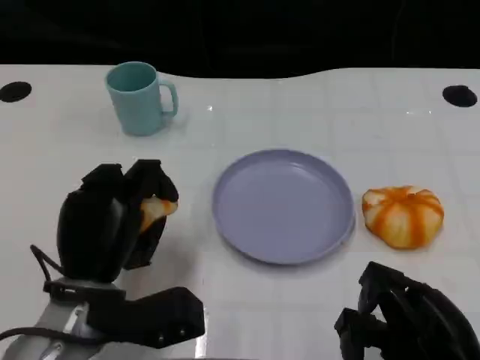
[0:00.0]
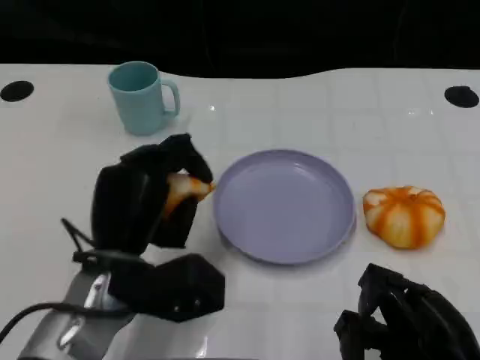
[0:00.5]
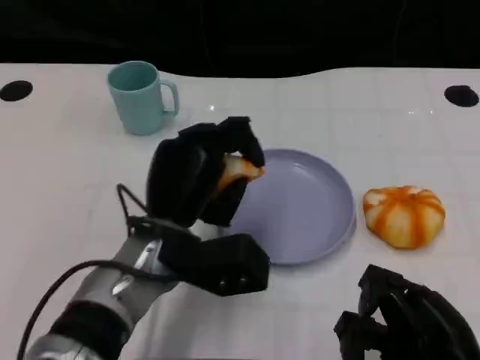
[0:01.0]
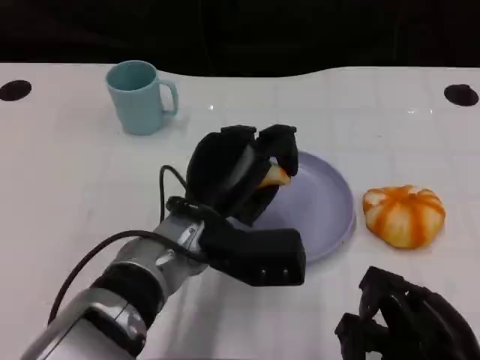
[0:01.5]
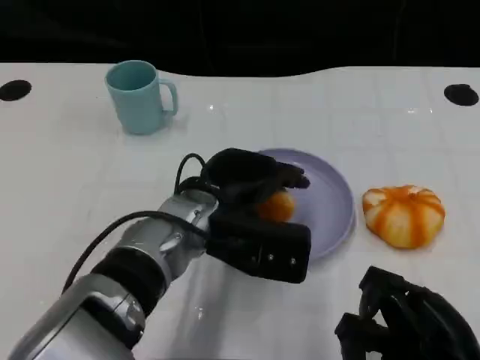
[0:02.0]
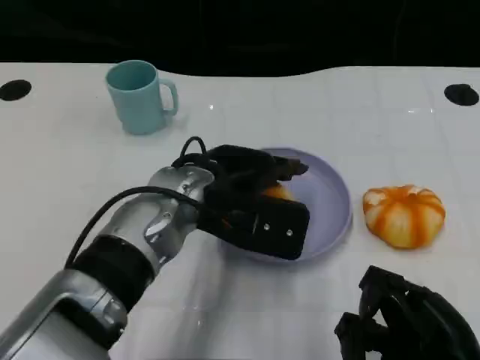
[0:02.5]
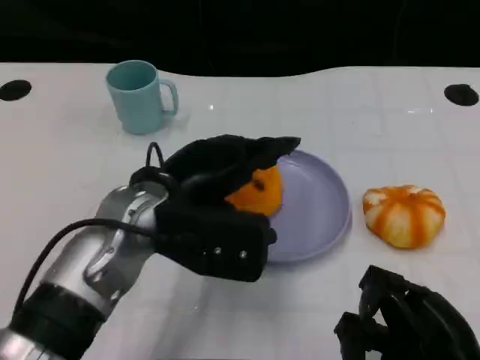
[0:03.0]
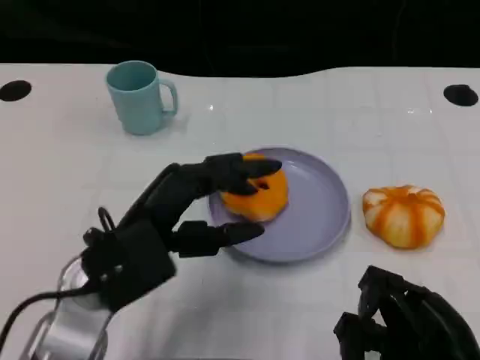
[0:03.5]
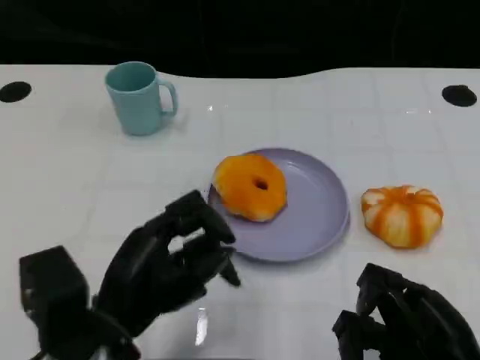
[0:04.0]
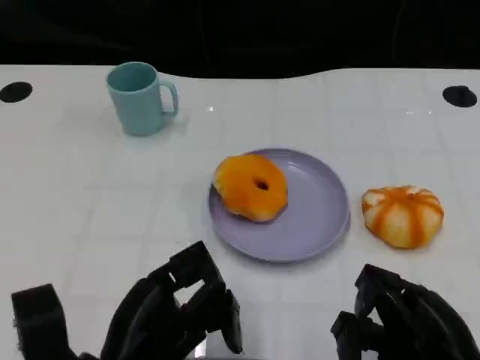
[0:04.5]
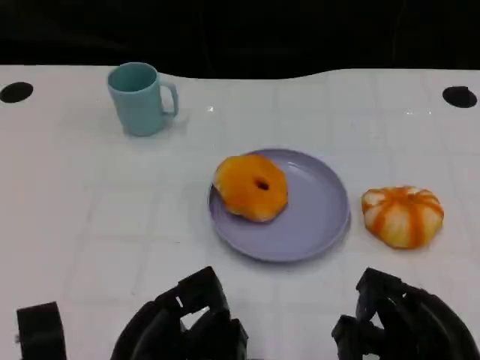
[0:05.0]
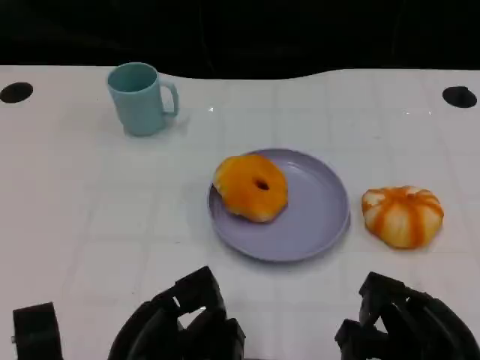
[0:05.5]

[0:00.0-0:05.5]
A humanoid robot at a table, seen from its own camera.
Task of the whole recording: Grasp the bread from the table and place it into the plate.
0:00.0 to 0:02.0: The left hand goes about 15 cm to the right and forward.
0:02.0 to 0:03.5: The left hand goes roughly 10 cm to the left and backward.
0:03.5 to 0:05.5: The left hand is displaced backward and downward by approximately 10 cm.

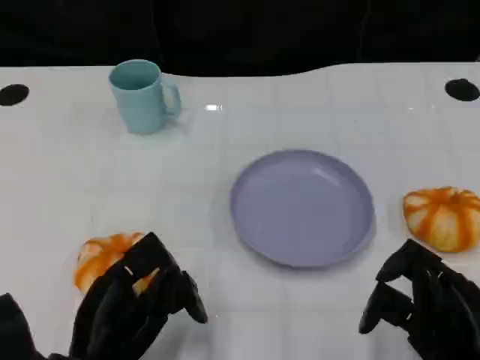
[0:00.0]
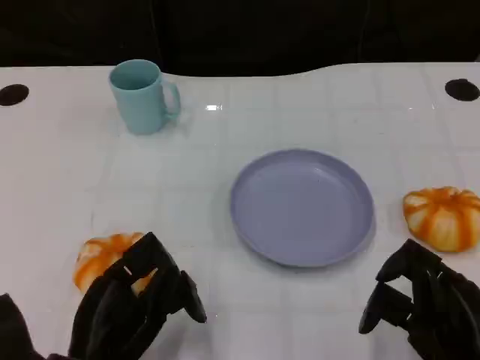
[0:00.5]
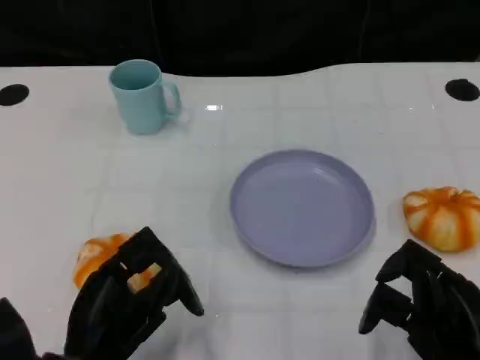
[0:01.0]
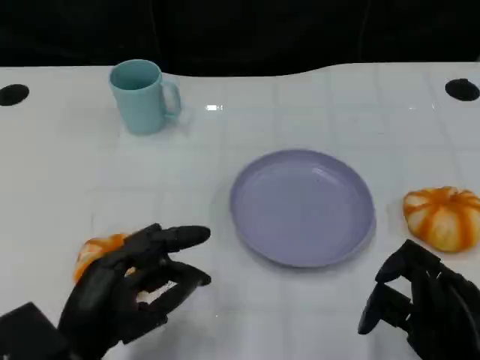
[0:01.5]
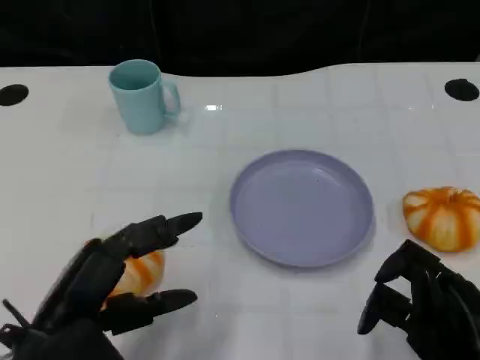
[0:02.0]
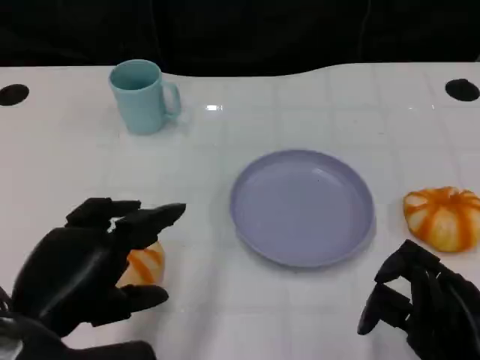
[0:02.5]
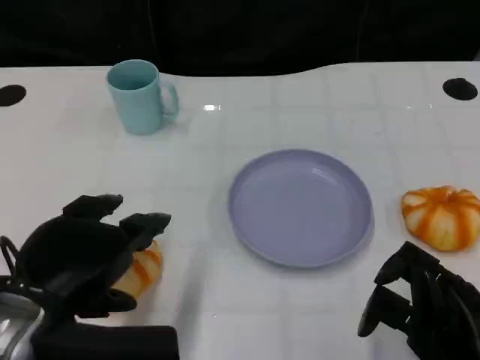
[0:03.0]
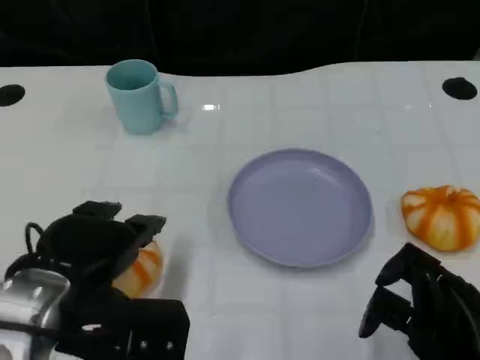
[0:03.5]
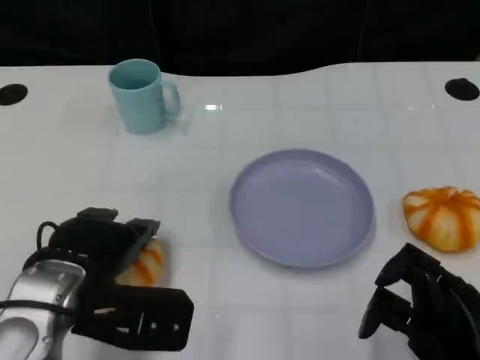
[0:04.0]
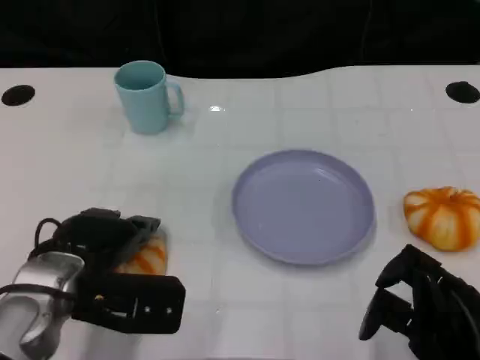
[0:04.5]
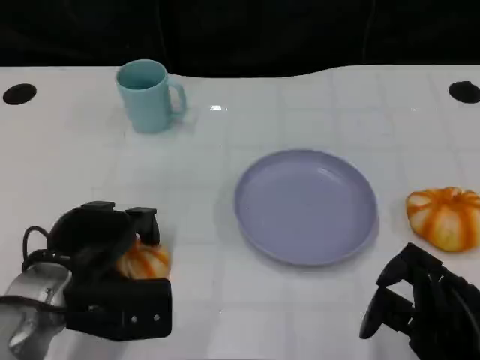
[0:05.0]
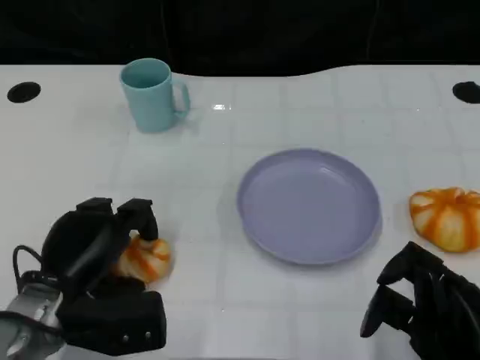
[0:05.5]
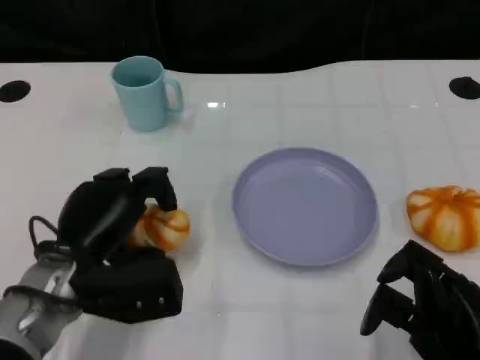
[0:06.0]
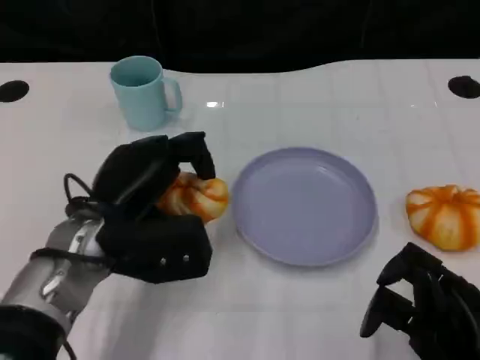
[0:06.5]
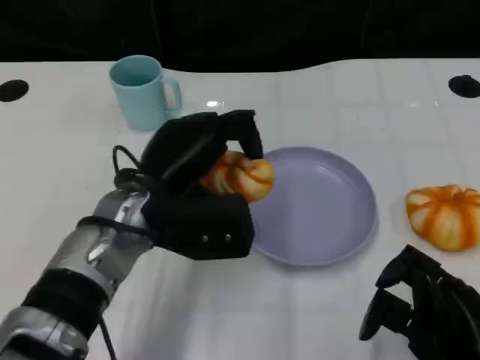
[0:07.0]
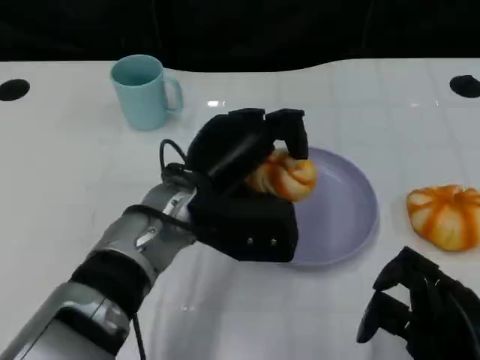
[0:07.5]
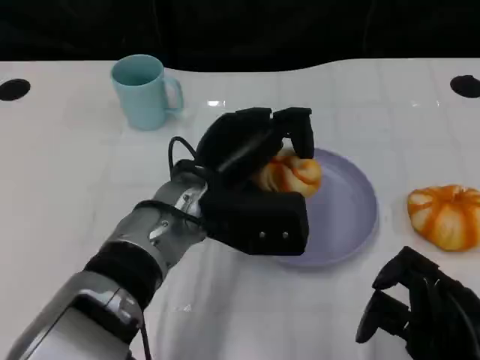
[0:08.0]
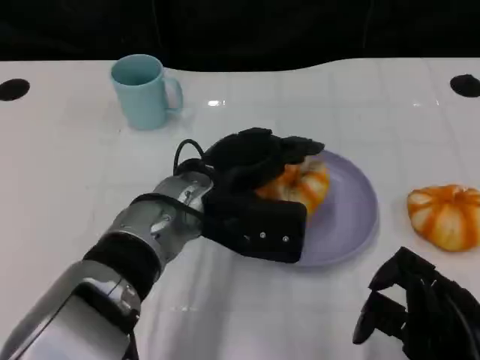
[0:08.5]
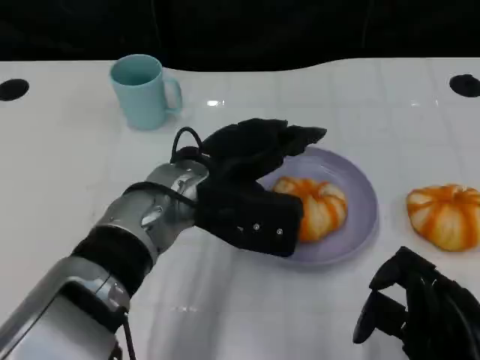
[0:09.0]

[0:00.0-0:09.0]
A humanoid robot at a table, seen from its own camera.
Task of the whole recording: Grasp the bread from the table and place it into the plate.
0:00.0 to 0:02.0: The left hand travels upward by roughly 5 cm.
0:02.0 to 0:04.5: The left hand heads forward, covering about 10 cm.
0:04.5 to 0:07.0: The left hand moves to the right, about 10 cm.

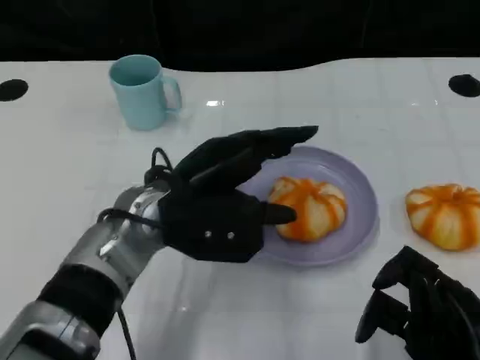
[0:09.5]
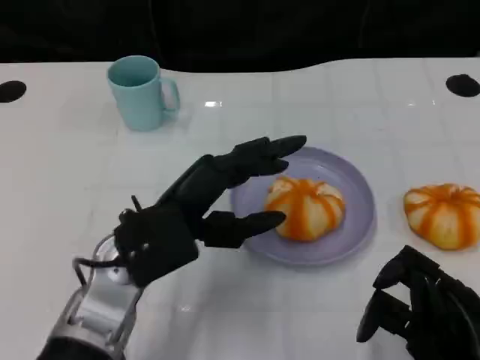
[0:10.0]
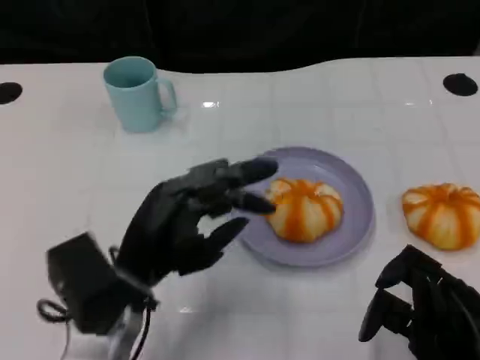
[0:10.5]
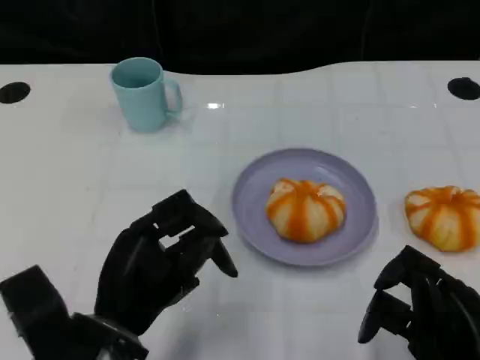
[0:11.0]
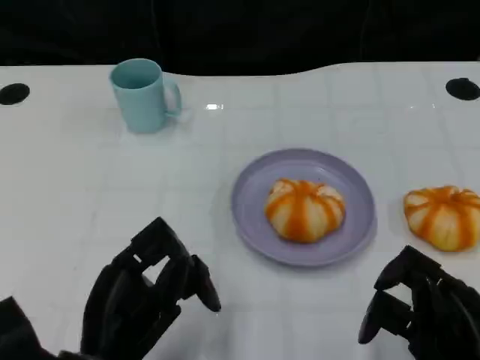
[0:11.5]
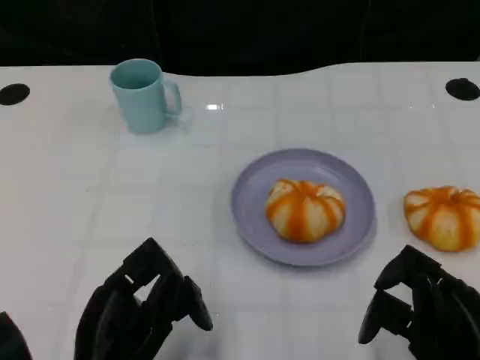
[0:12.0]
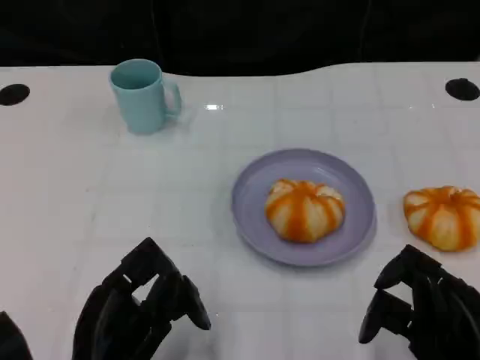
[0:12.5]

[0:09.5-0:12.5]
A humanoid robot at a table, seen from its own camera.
Task of the whole recording: Grasp the bread from the table and place it into the plate.
0:09.5 to 0:11.0: The left hand goes about 15 cm backward, to the left and downward.
0:11.0 to 0:12.5: The hands make only small movements.

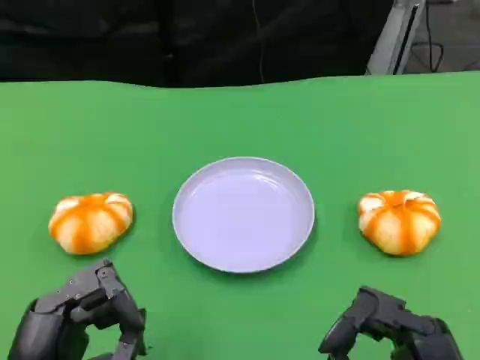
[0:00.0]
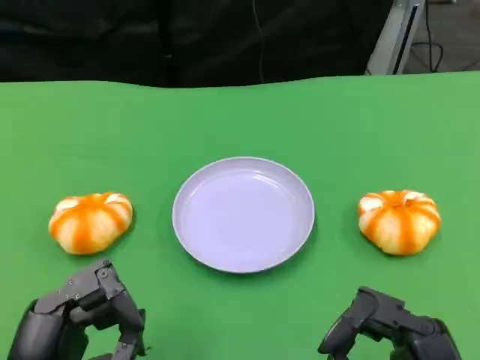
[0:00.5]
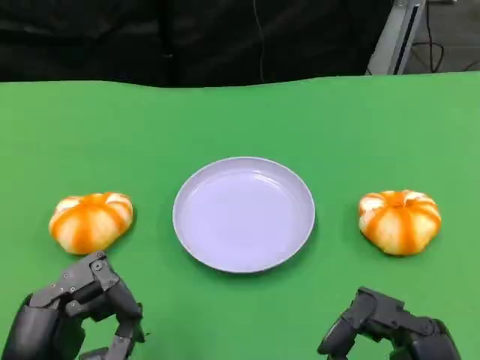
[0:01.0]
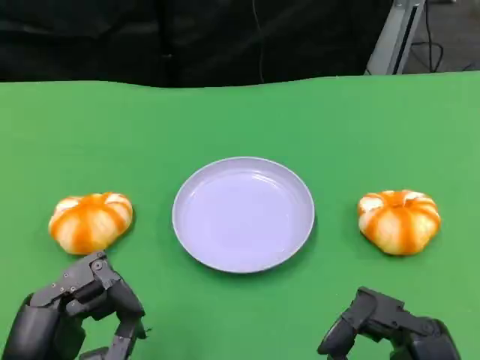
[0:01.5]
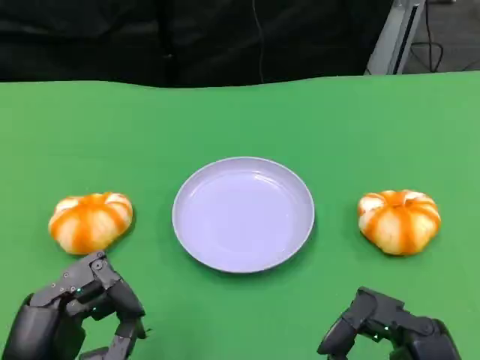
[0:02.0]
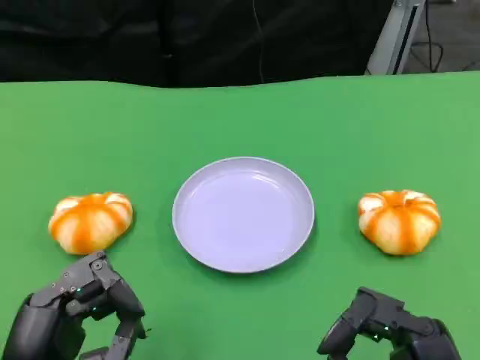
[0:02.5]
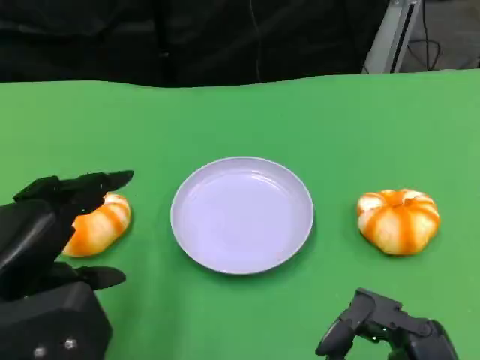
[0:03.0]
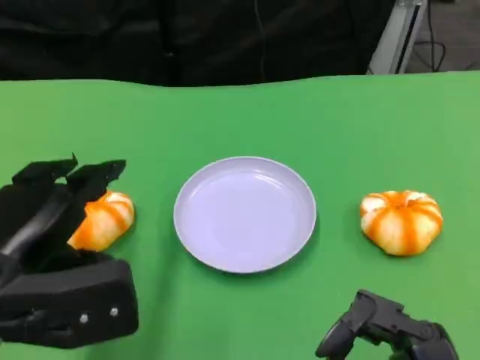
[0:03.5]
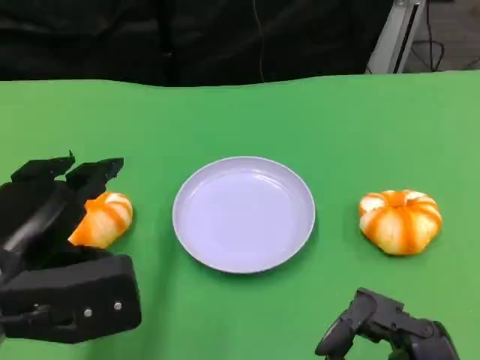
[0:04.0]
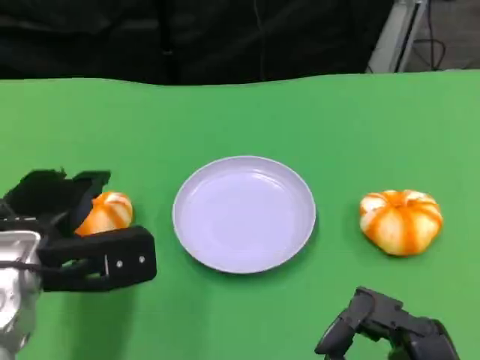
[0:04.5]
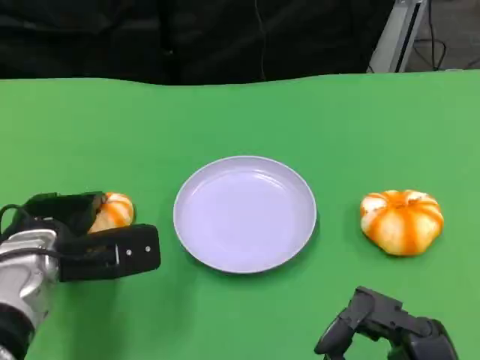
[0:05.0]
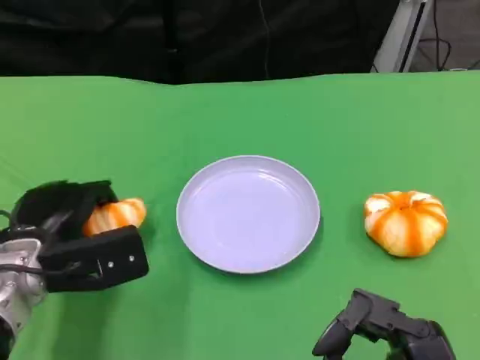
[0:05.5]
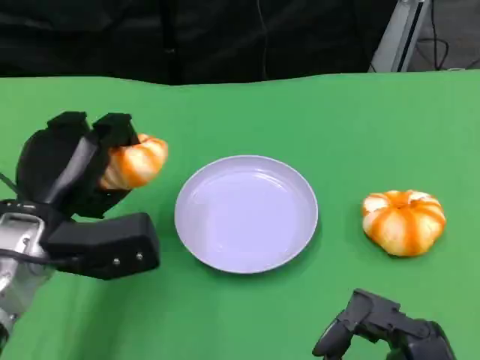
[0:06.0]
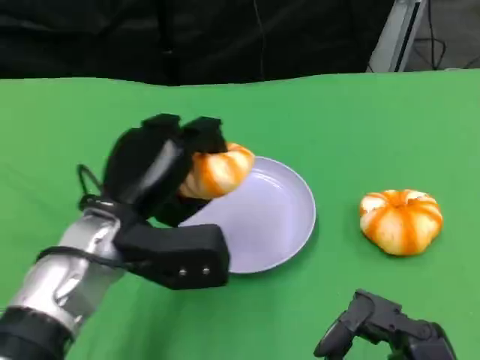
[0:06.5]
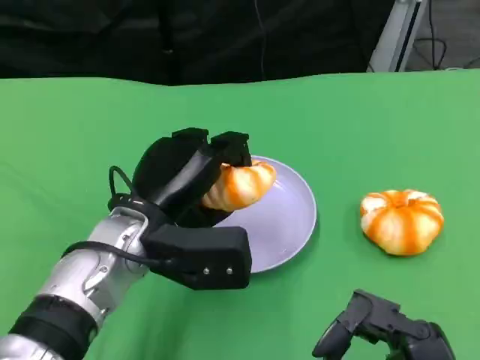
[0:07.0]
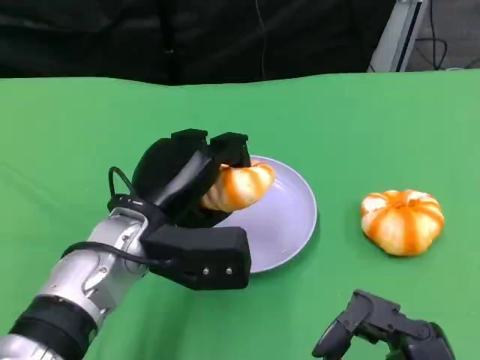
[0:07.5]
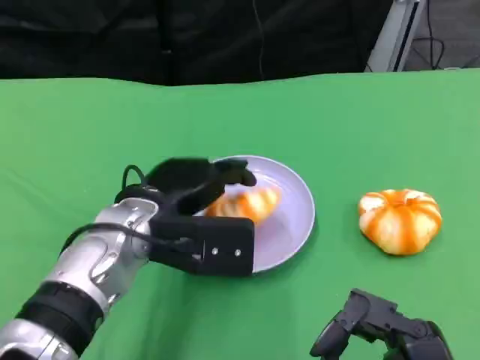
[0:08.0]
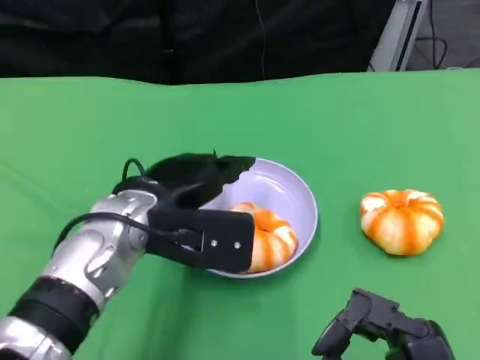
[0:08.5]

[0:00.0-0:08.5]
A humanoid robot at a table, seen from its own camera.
Task of the whole recording: Grasp the bread from the table and place it into the plate.
0:00.0 to 0:02.0: The two hands keep their place.
0:02.0 to 0:04.0: The left hand shifts some 10 cm forward and upward.
0:04.0 to 0:06.5: The left hand shifts about 10 cm to the right and forward.
